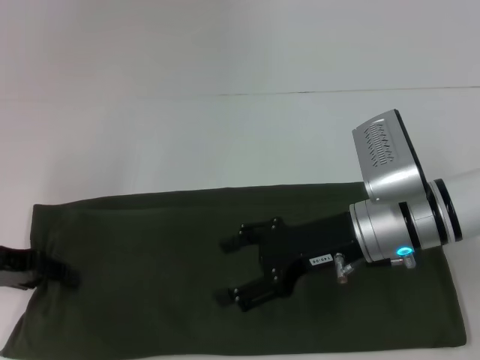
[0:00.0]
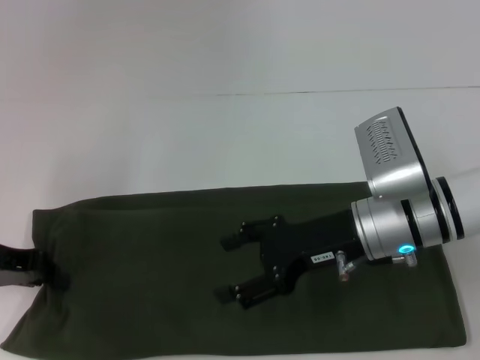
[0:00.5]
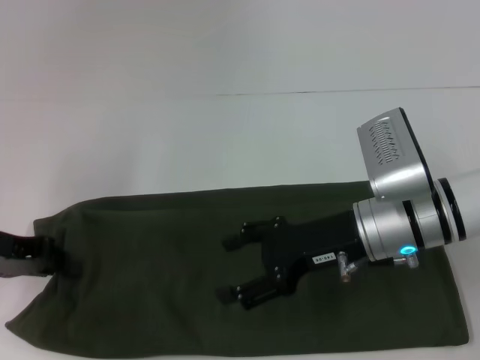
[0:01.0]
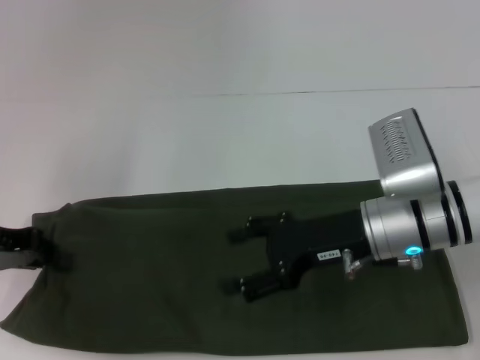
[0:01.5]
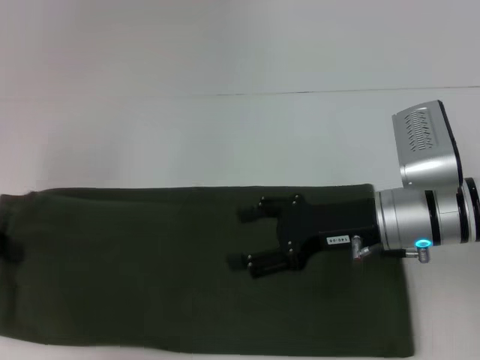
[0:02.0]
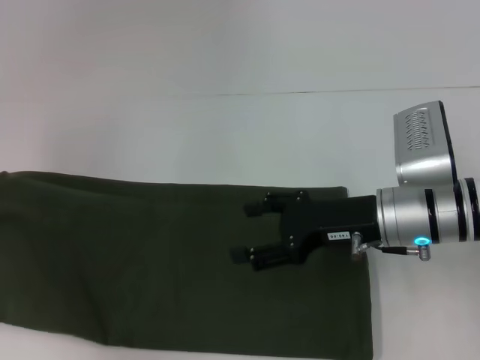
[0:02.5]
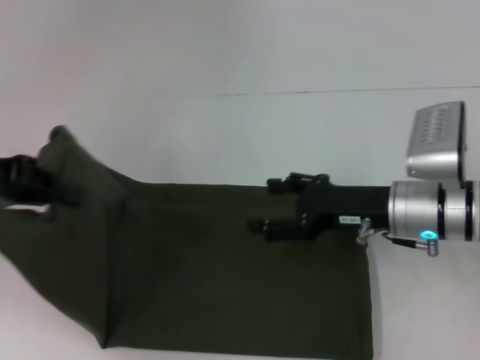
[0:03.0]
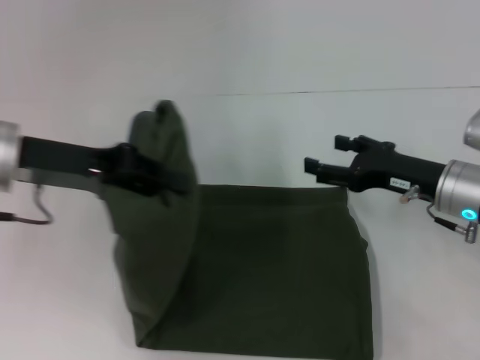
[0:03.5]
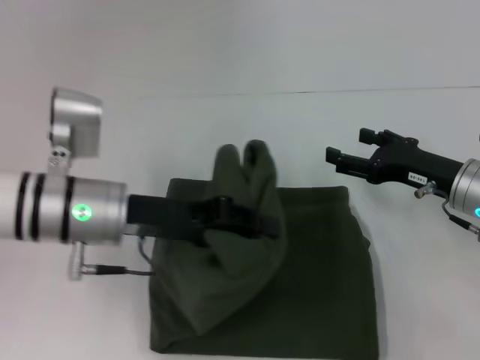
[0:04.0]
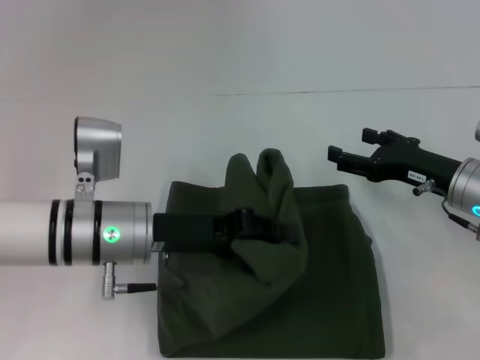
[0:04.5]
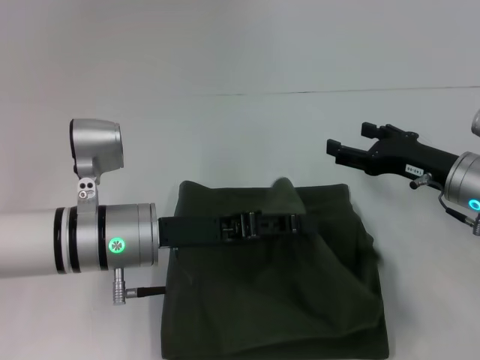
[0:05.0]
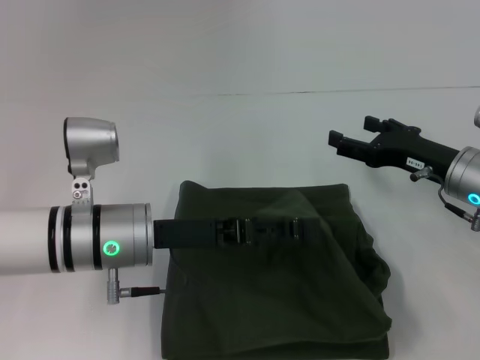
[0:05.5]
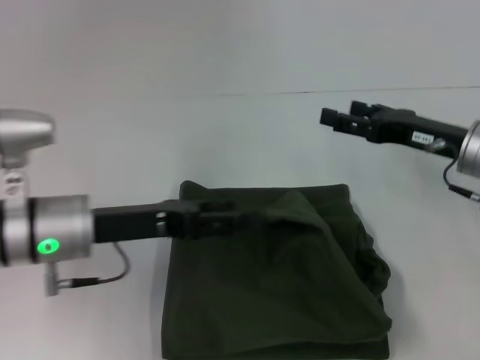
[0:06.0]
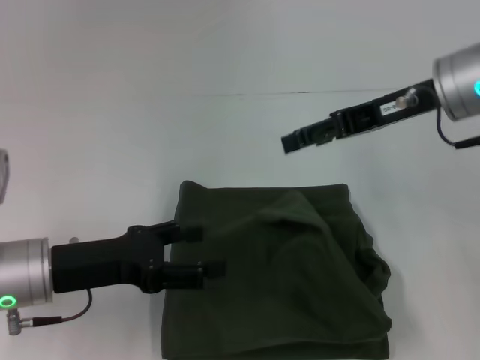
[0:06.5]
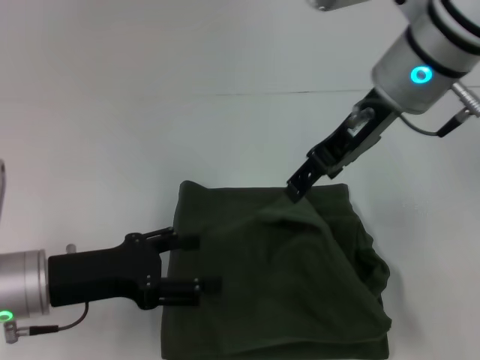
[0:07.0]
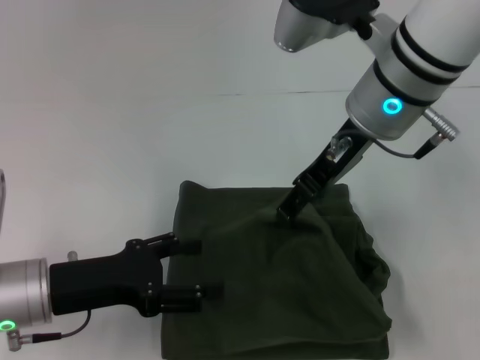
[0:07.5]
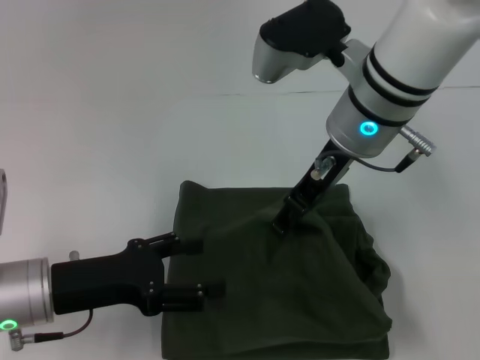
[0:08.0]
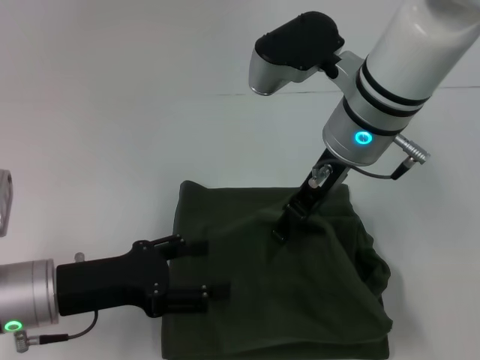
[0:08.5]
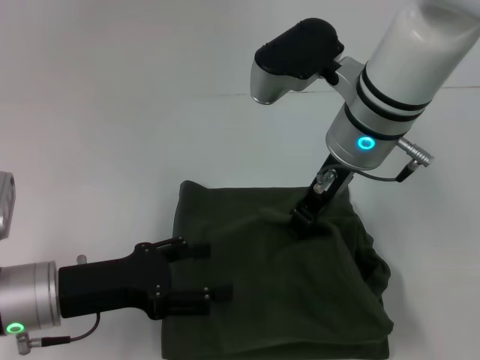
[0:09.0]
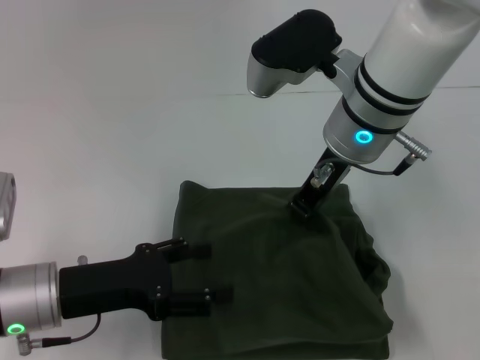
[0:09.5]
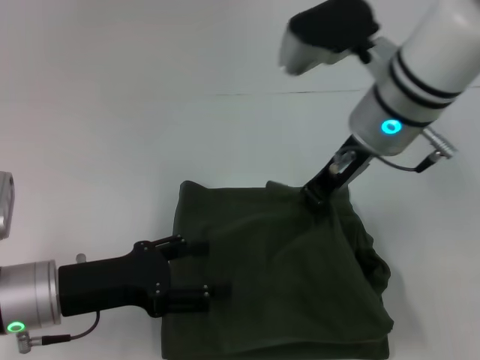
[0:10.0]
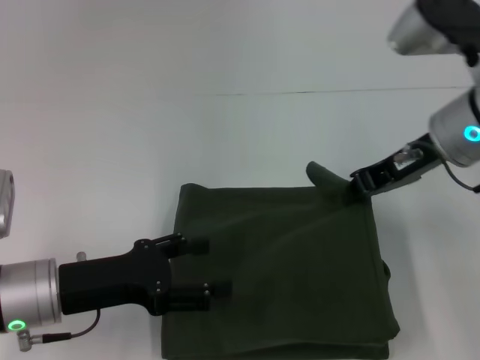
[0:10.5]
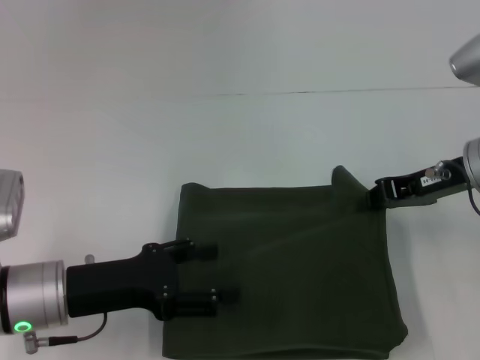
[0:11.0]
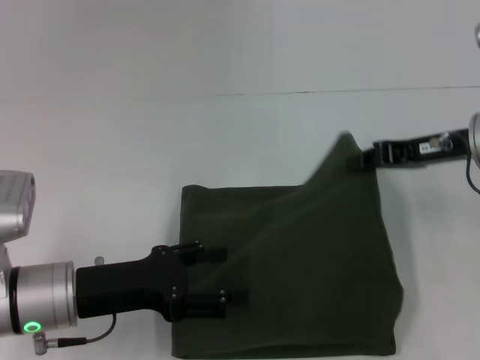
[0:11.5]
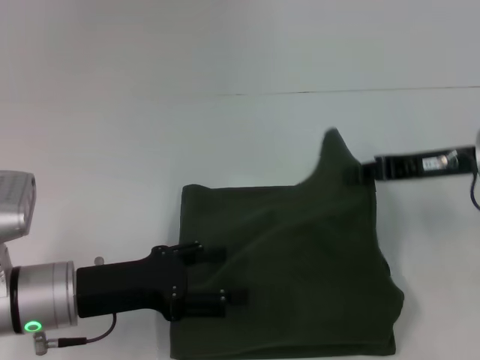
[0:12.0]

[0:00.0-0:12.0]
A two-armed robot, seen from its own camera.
Step, 0:00.0 to 0:05.0: Fold the clothes with your left hand.
0:00.0 to 0:02.0: The left gripper changes place by some 5 cm, and closes.
0:02.0 to 0:04.0: The right gripper goes about 10 cm to the right; the left gripper shifts approximately 20 cm to the right.
0:04.0 to 0:06.0: The left gripper opens up.
0:06.0 to 0:08.0: The right gripper moves to the left and upward, roughly 20 cm, while the left gripper moves backward, roughly 5 cm.
0:08.0 to 0:10.0: The right gripper closes its fingers.
0:10.0 to 0:12.0: The right gripper goes some 15 cm to the right and downward.

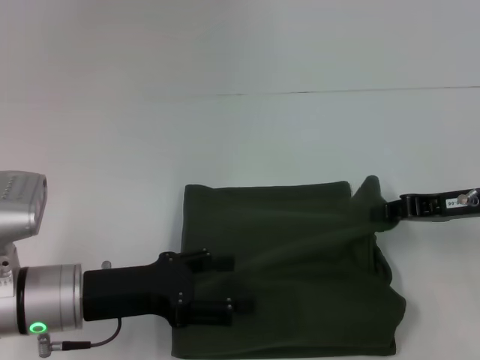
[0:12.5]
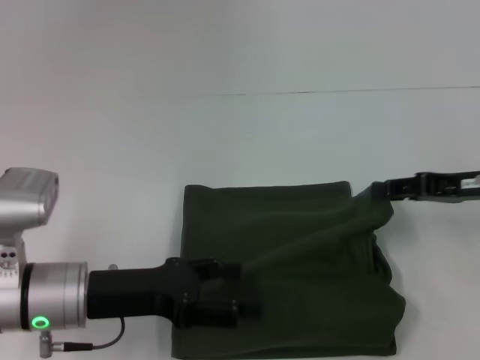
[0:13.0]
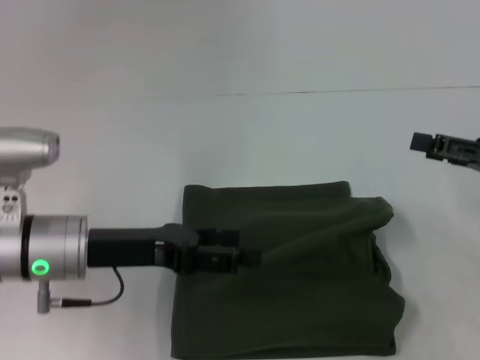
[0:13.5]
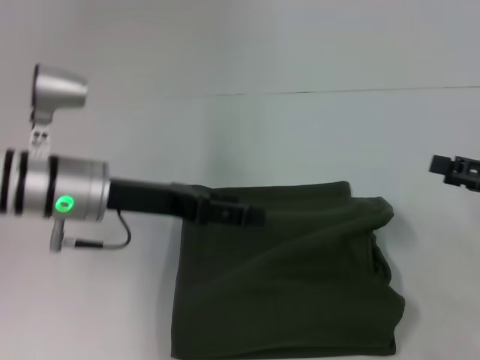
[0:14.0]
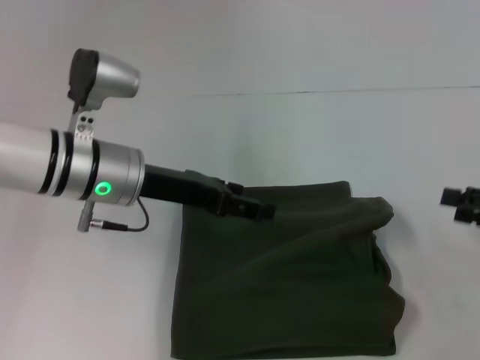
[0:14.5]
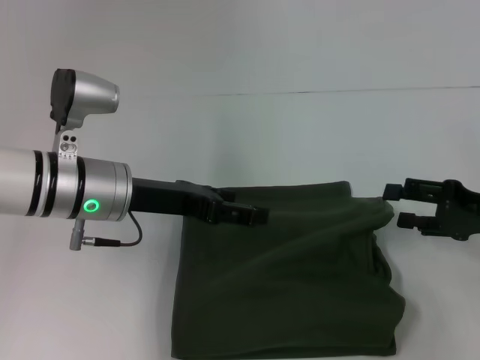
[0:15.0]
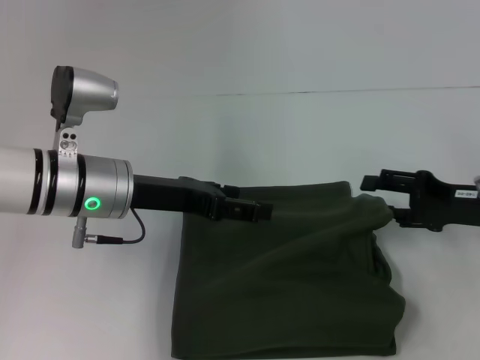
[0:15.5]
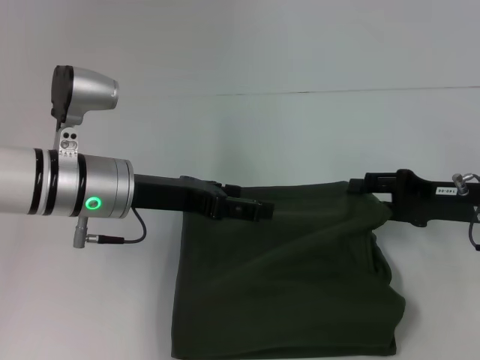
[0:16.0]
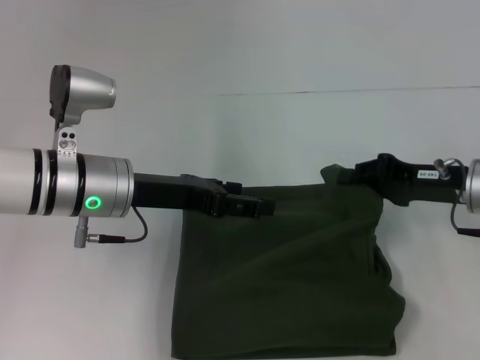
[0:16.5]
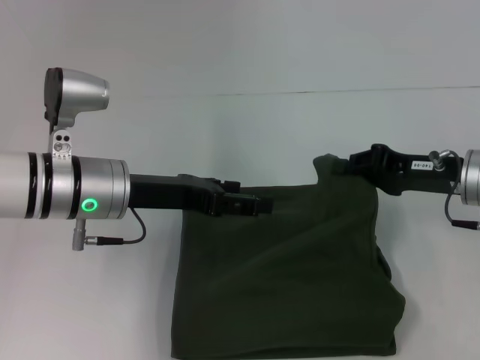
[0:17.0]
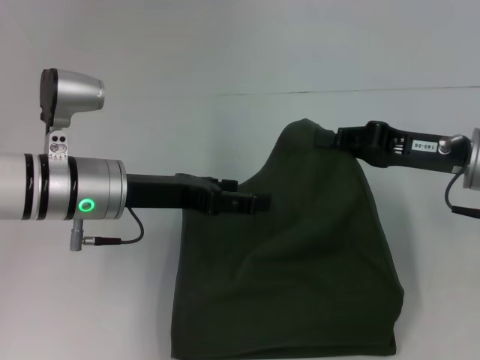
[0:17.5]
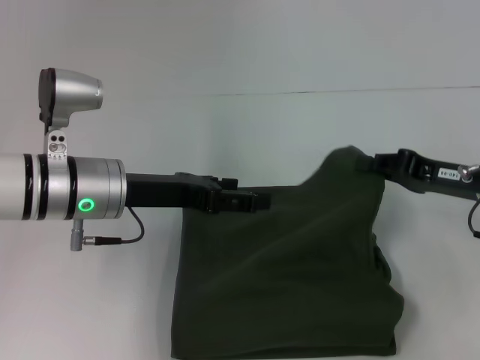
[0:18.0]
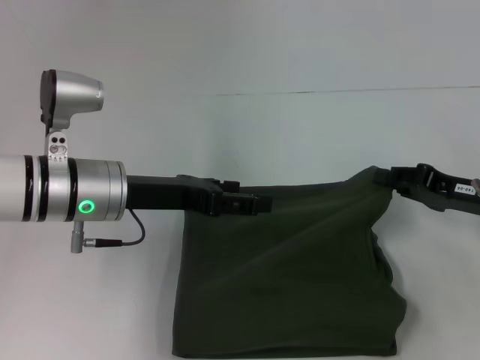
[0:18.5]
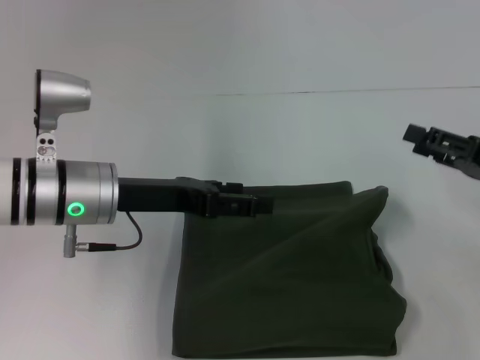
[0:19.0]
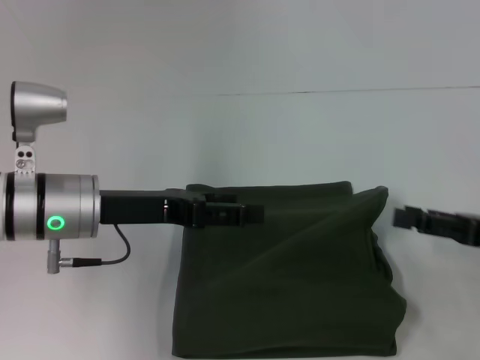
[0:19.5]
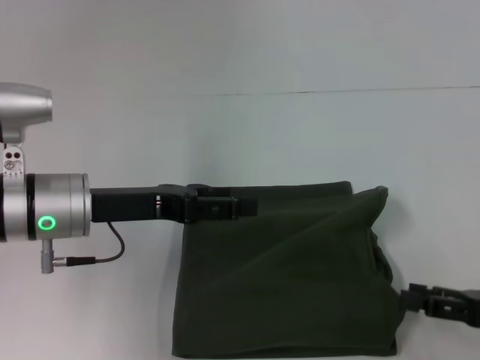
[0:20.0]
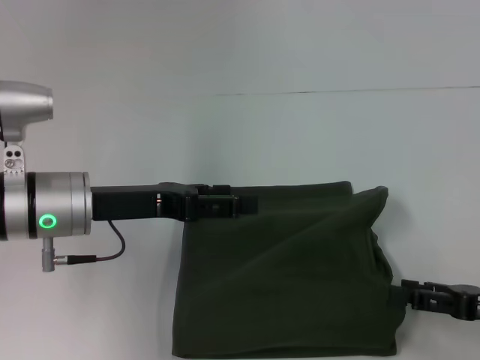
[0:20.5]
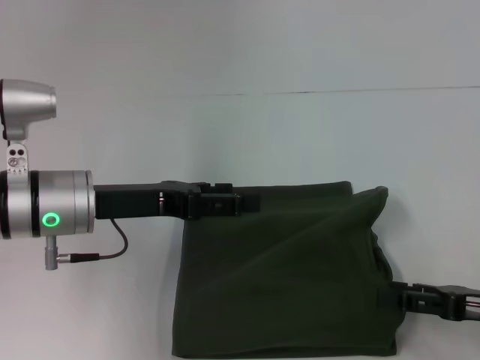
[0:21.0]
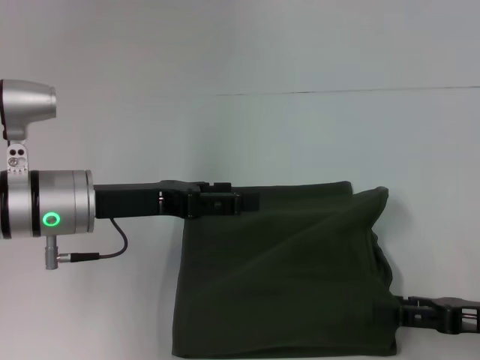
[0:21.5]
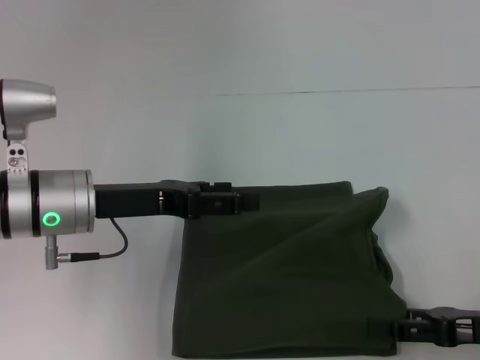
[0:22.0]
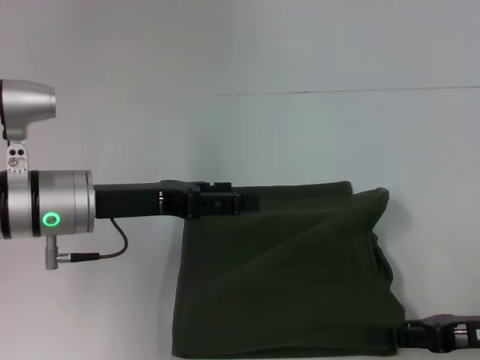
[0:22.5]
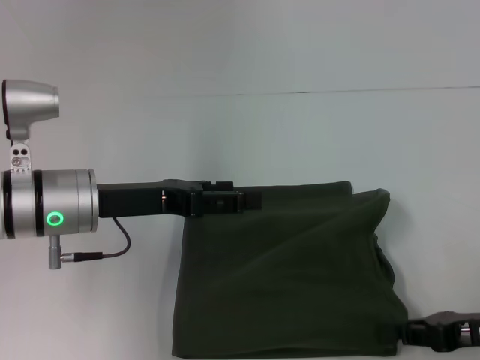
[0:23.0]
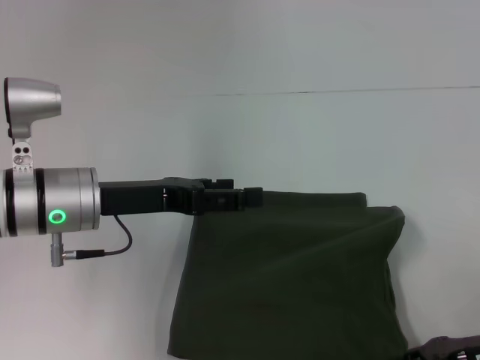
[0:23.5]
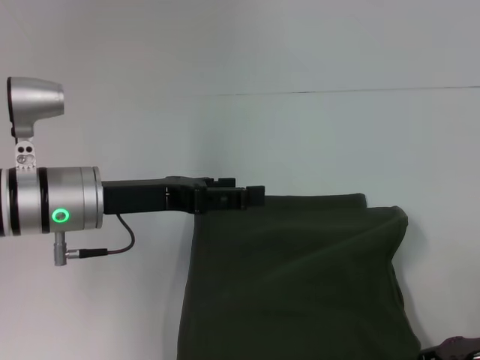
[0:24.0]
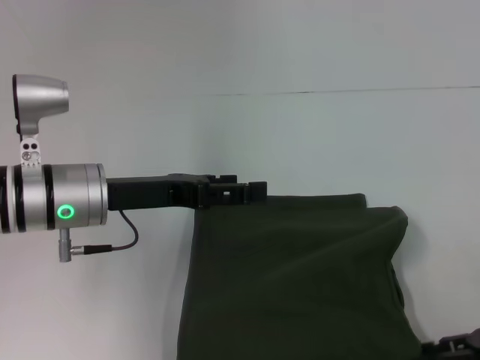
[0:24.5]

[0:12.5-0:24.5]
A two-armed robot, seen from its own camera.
0:12.5 to 0:14.5: The right gripper is displaced to the right and backward by about 10 cm, and opens its fingers. The left gripper is displaced forward and upward by approximately 10 cm.
0:14.5 to 0:16.5: The right gripper goes roughly 15 cm to the left and forward, and closes.
0:18.5 to 0:20.5: The right gripper moves backward, roughly 10 cm, and opens up.
0:20.5 to 0:22.5: The right gripper closes up.
0:22.5 to 0:24.5: The grippers make only small movements.

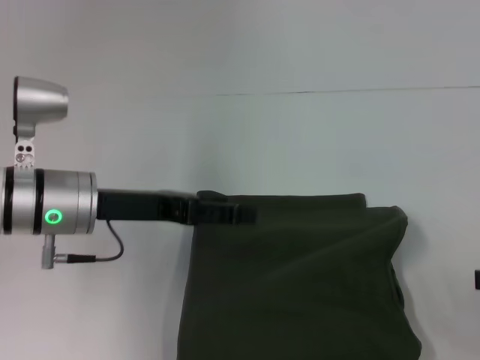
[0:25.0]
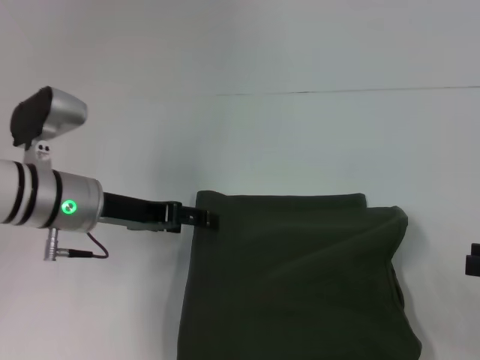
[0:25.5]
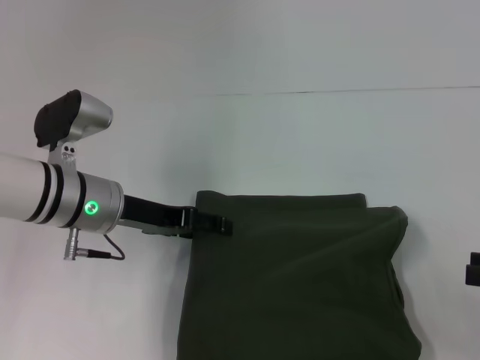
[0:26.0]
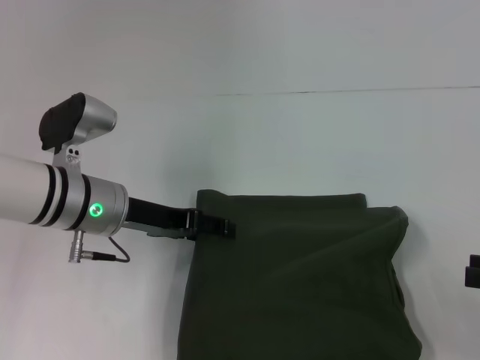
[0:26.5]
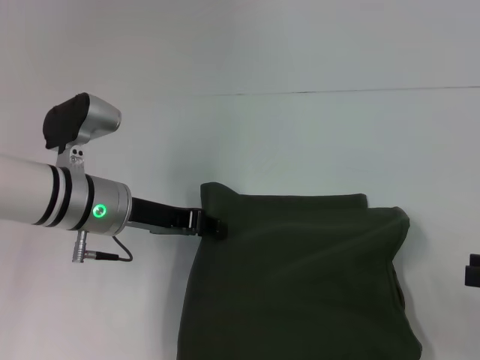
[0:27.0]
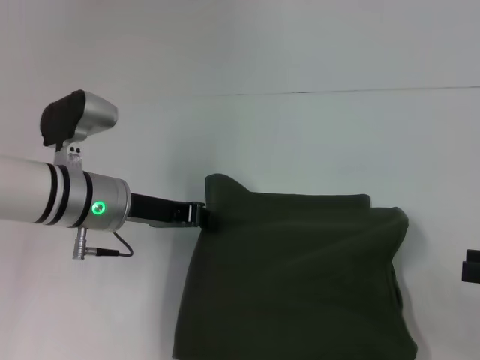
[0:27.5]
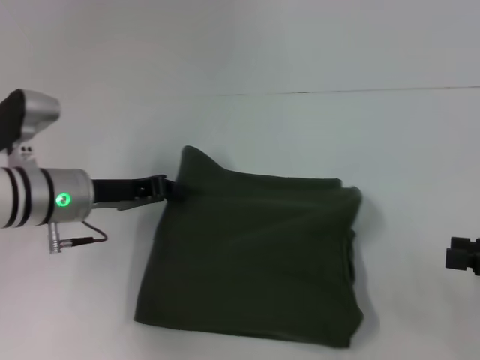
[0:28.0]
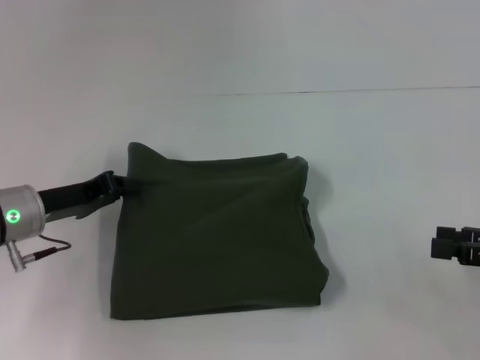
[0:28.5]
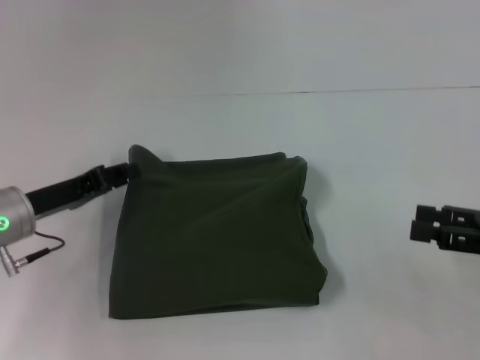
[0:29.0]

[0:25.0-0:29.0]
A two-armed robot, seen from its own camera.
0:27.0 to 0:29.0: The left gripper heads to the left, covering about 10 cm, and closes; the right gripper moves approximately 5 cm.
